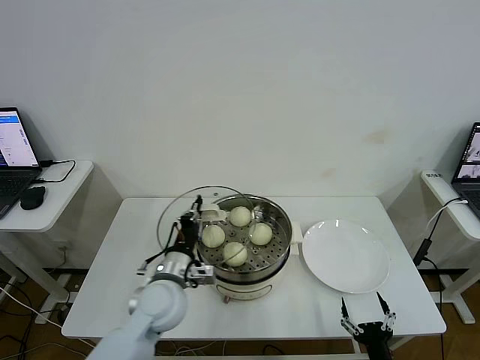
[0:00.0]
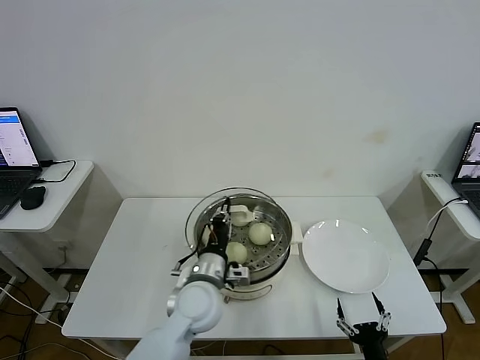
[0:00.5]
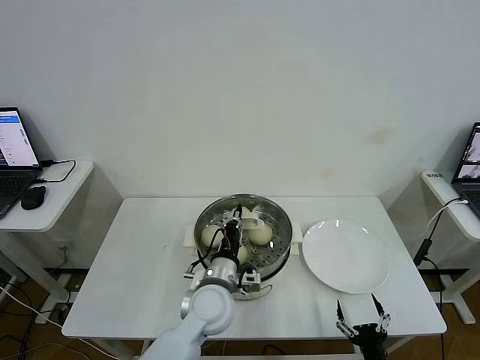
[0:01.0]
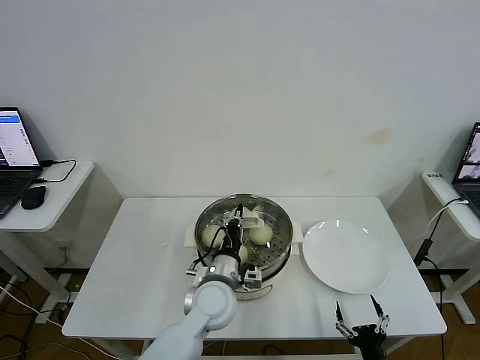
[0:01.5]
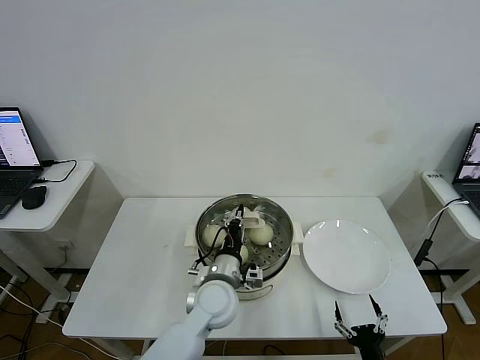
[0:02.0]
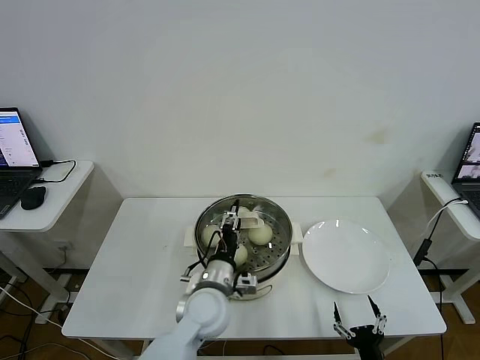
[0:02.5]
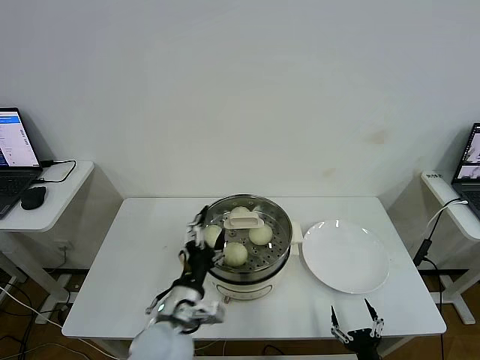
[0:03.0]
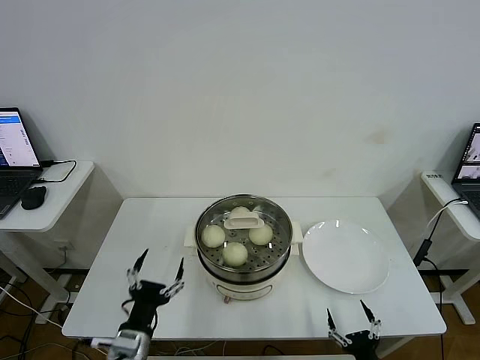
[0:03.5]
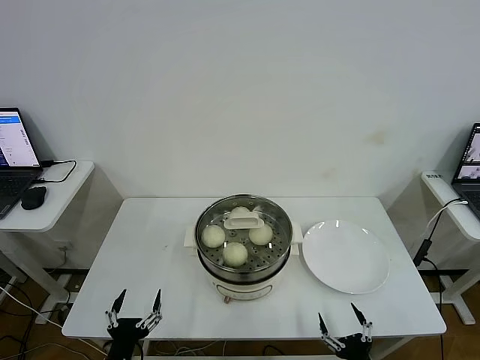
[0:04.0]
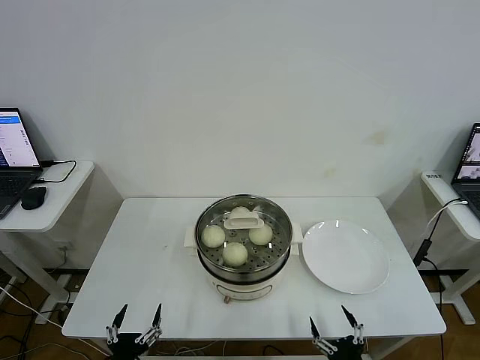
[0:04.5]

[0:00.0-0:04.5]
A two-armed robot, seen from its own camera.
Step, 0:00.0 to 0:02.5: Place the pot lid on the steamer with left gripper.
0:00.0 to 0:02.0: The left gripper heads to the right, covering approximately 10 cm.
0:02.0 to 0:04.5: The left gripper travels backward and to the left by approximately 30 cm, and opens its fingers.

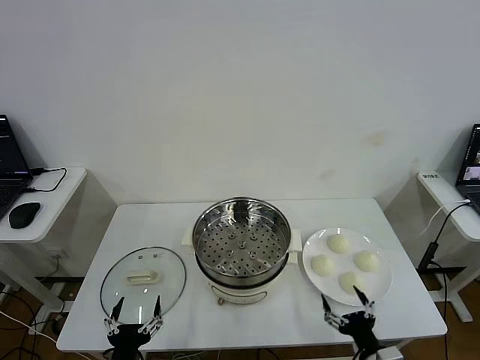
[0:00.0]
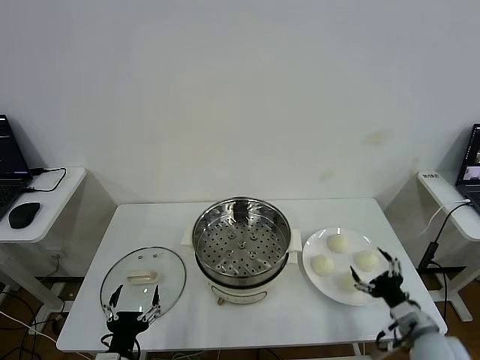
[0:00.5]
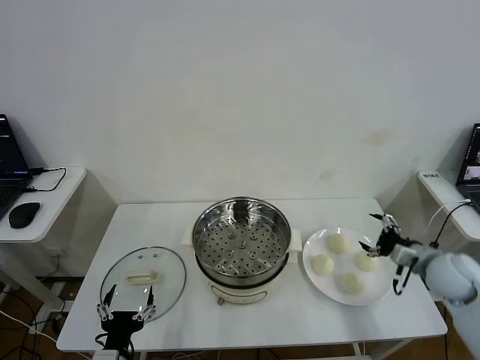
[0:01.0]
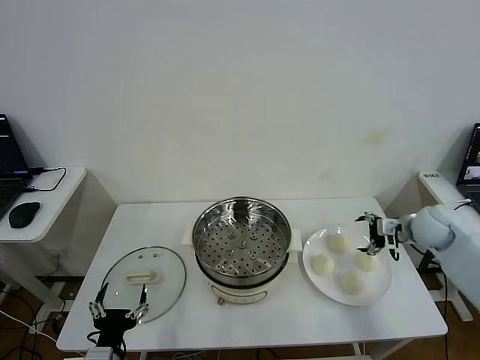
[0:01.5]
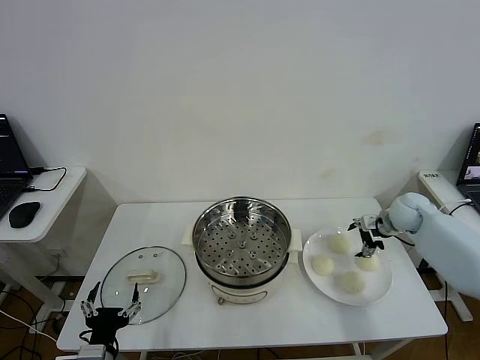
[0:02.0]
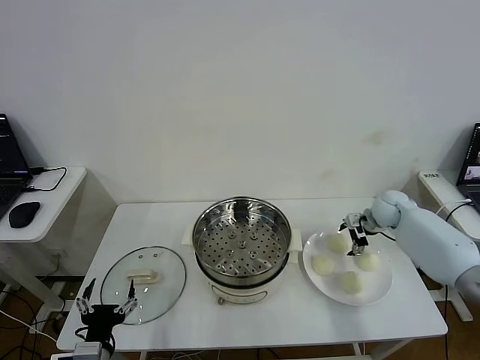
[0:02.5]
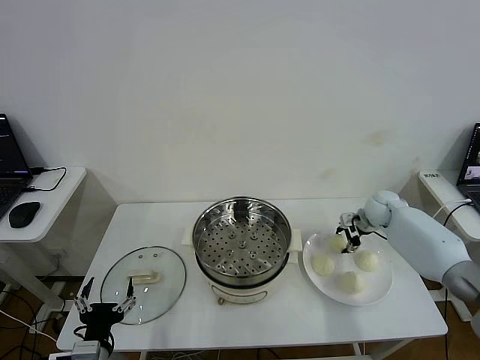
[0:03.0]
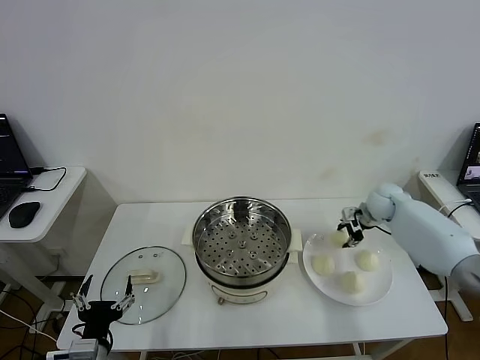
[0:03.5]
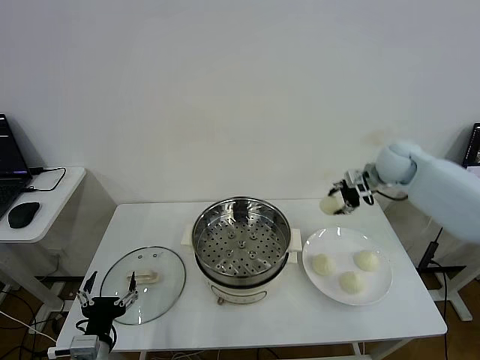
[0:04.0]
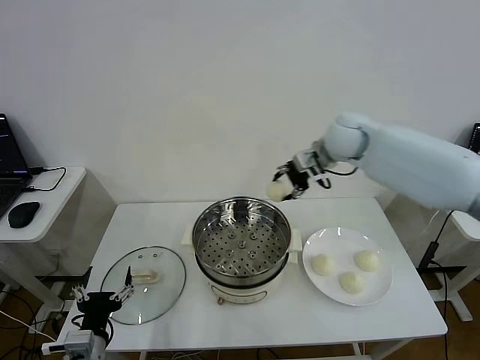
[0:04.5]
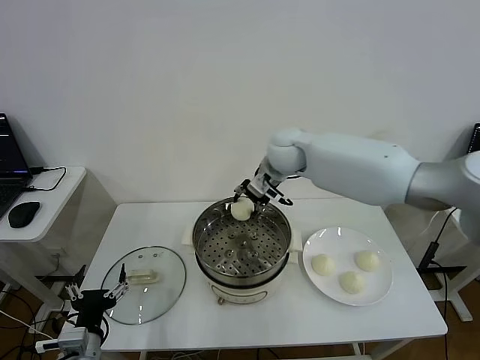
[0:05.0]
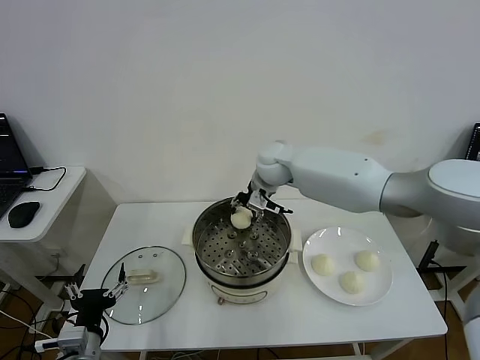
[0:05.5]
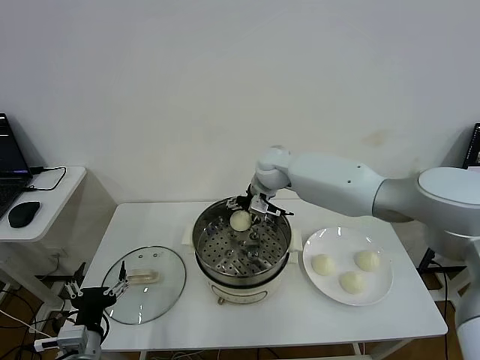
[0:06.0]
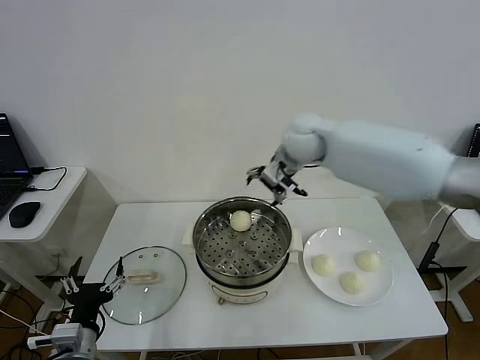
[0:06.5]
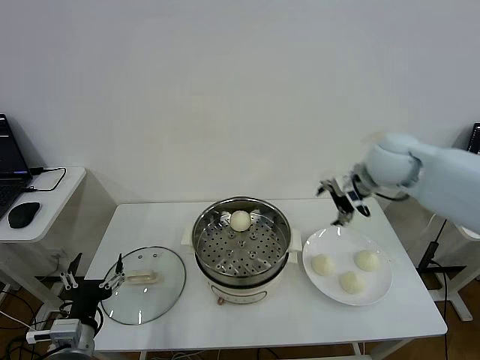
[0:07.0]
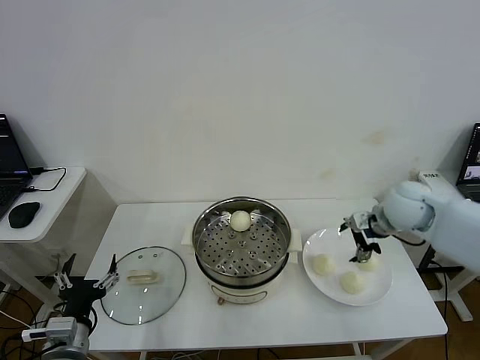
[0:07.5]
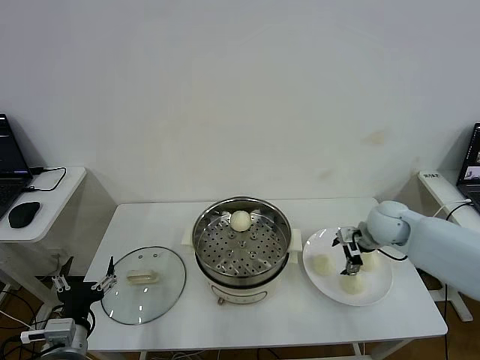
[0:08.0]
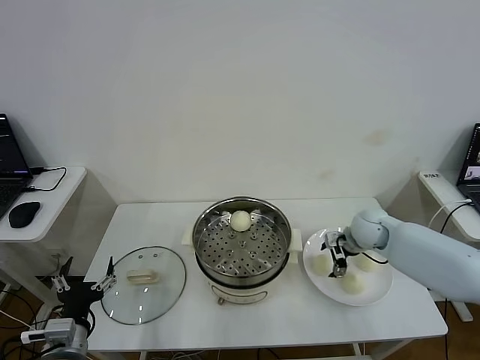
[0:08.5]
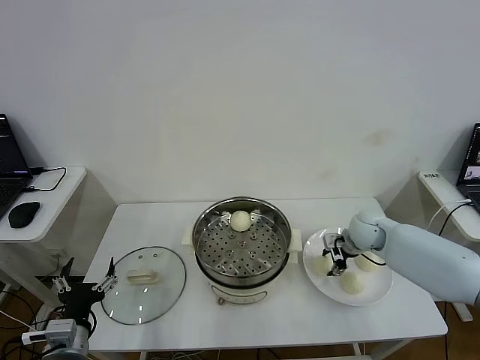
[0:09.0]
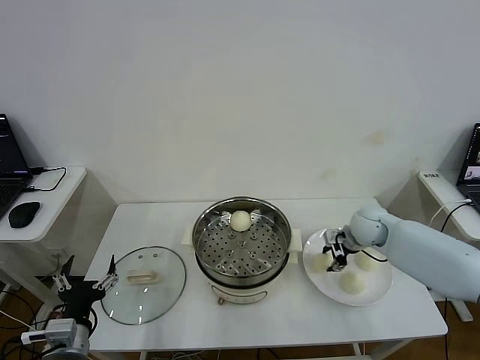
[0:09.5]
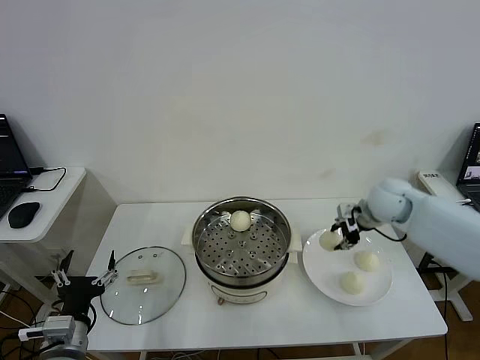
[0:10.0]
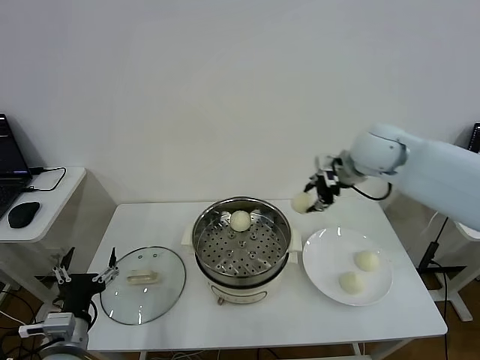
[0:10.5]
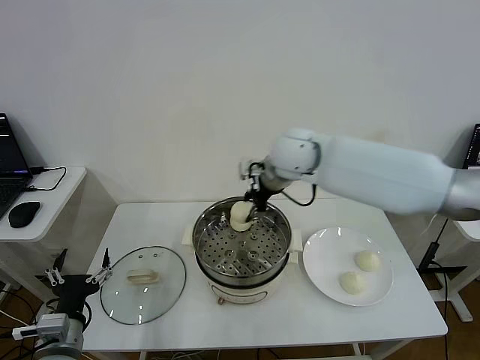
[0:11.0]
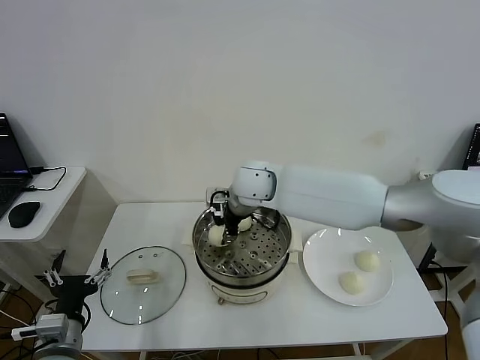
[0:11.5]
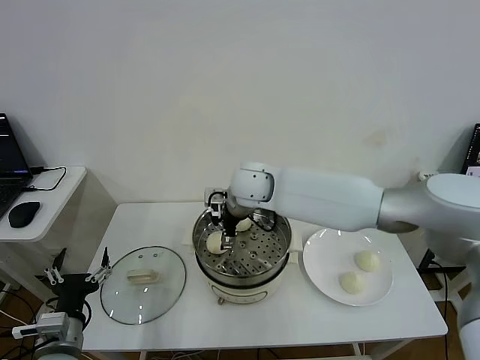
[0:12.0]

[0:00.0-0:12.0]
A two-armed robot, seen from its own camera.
Step, 0:00.0 to 0:03.0: Grasp the baozi in the plate with right gripper.
Step, 0:03.5 to 0:05.5: Place the baozi on the steamer with right gripper.
Step, 0:06.0 to 0:08.5: Grasp the baozi in the plate with right gripper.
Step, 0:09.0 to 0:11.5: Place the baozi on the steamer with right gripper.
0:02.0 to 0:04.0: The right gripper goes roughly 20 cm upward and to the left, and closes up.
0:04.0 to 0:06.0: The right gripper is displaced to the left by approximately 25 cm, and opens.
0:06.0 to 0:08.0: The right gripper travels to the right, downward and backward by roughly 30 cm.
0:08.0 to 0:10.0: The right gripper shifts about 10 cm upward, and closes its fingers.
0:10.0 to 0:12.0: The right gripper is displaced to the left by some 30 cm, and opens.

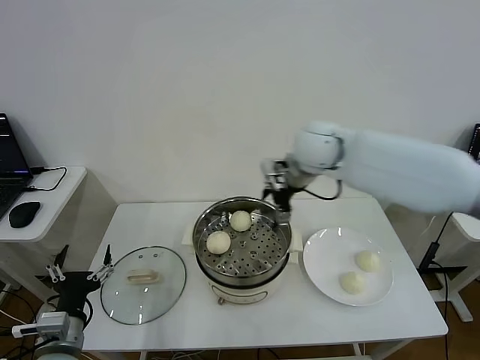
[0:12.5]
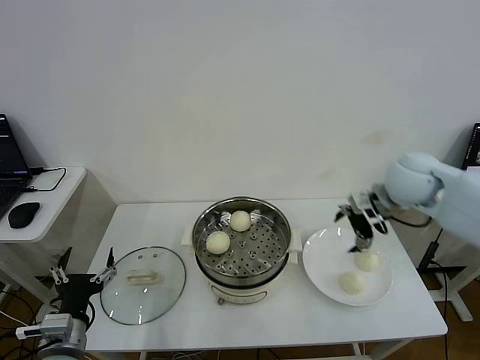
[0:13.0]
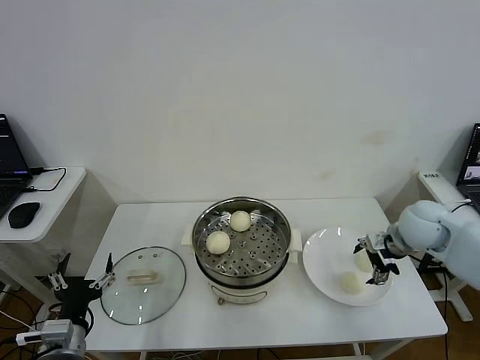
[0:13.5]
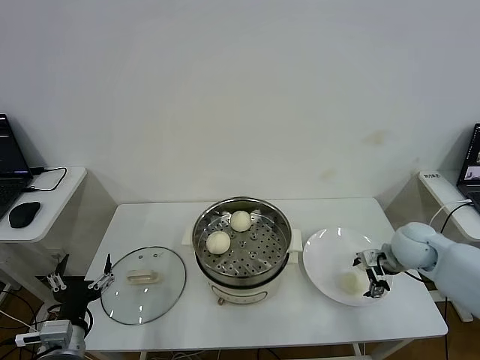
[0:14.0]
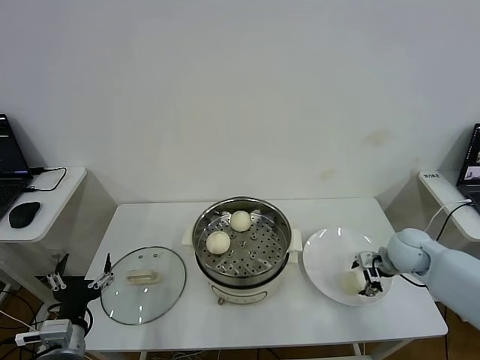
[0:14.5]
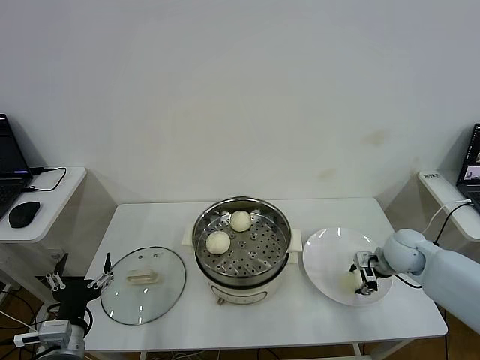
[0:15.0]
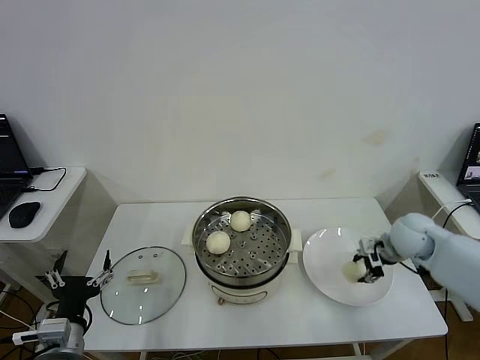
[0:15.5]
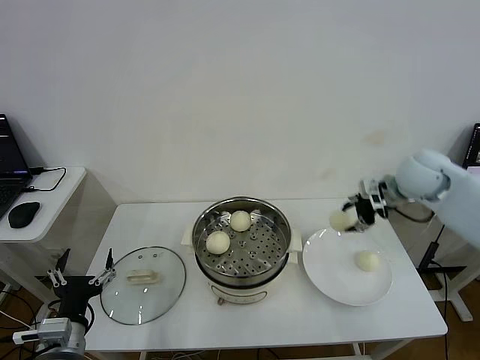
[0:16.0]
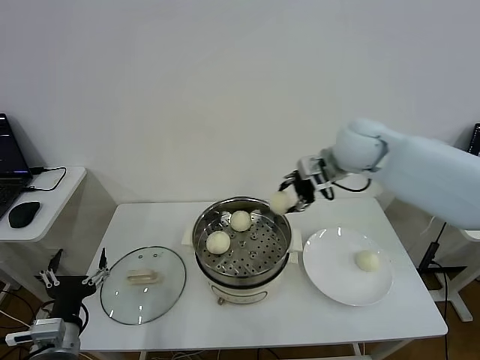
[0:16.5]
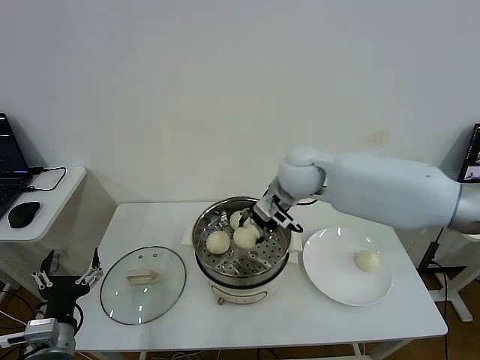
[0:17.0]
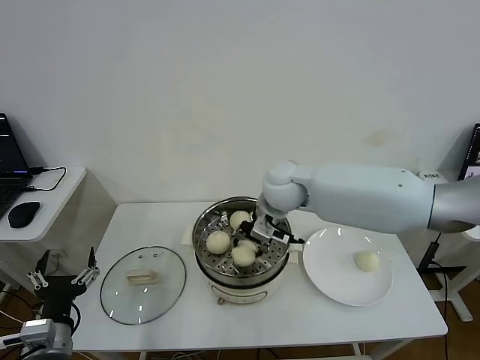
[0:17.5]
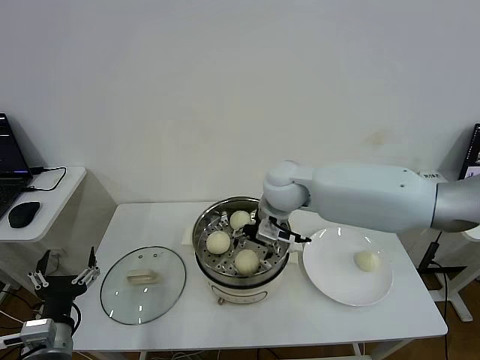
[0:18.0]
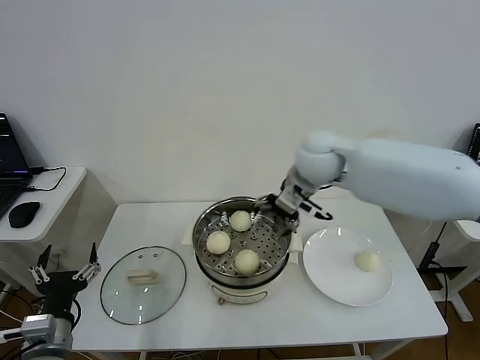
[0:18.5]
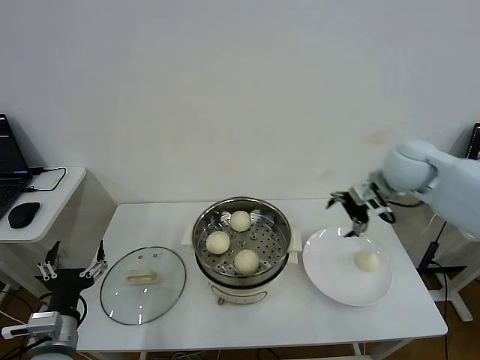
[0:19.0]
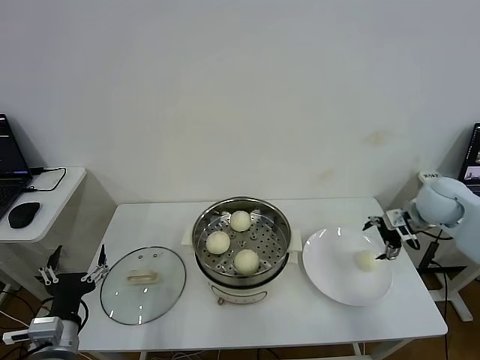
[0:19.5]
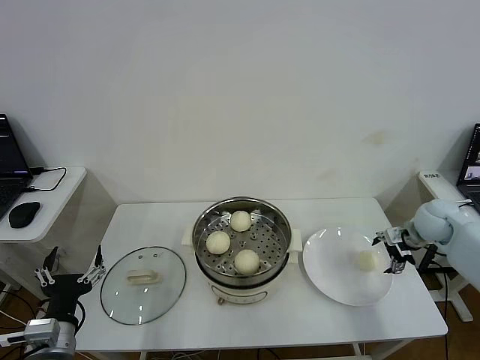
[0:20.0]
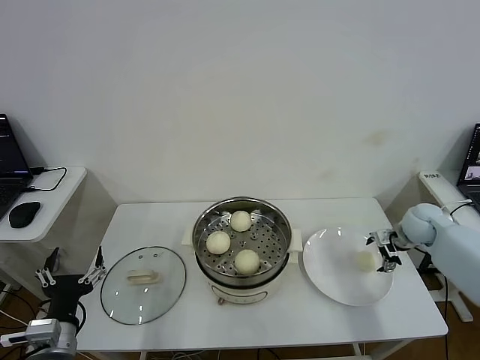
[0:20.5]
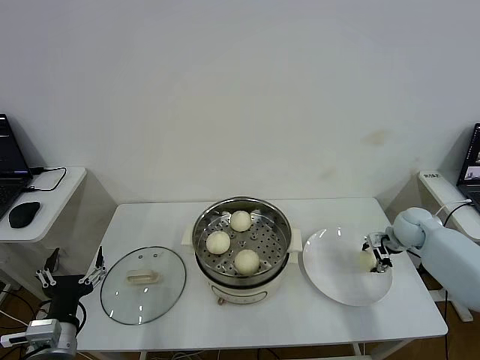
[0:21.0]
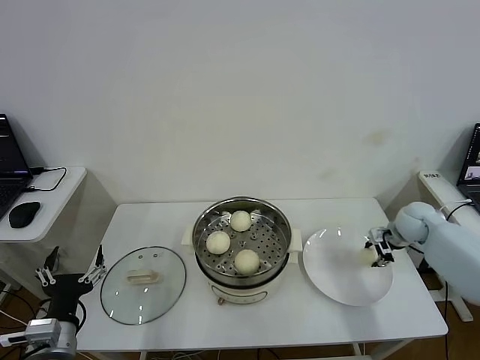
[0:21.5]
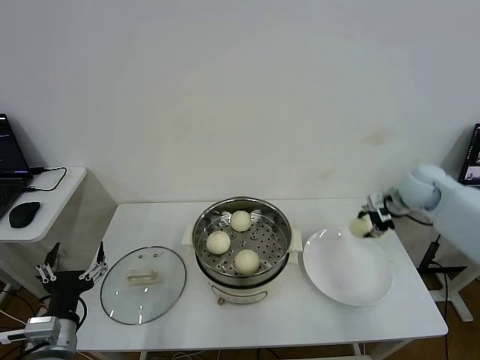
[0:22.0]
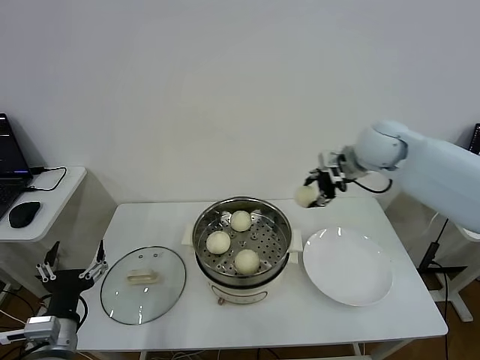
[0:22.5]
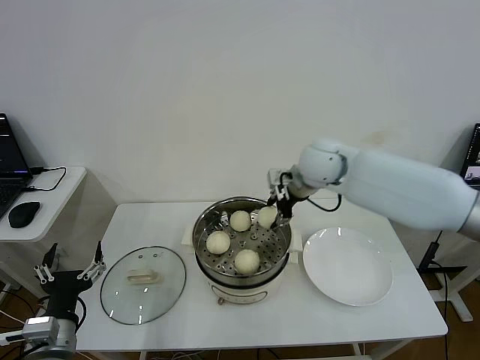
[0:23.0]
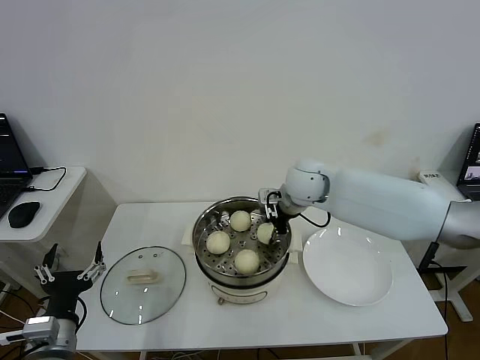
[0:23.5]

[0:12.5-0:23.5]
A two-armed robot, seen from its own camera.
Step, 0:12.5 to 0:14.5: Grasp the baozi in the plate with right gripper.
Step, 0:15.0 to 0:18.0: Place the baozi on the steamer with right gripper.
Step, 0:18.5 to 0:21.0: Grasp the baozi in the plate with right gripper.
0:12.5 to 0:14.5: The right gripper goes about 30 cm downward and to the right, and closes.
0:14.5 to 0:16.0: The right gripper is displaced upward by some 20 cm, and closes.
0:16.0 to 0:18.0: The right gripper is displaced to the left by approximately 25 cm, and opens its fingers.
0:18.0 to 0:20.0: The right gripper shifts roughly 35 cm to the right.
0:20.0 to 0:21.5: The right gripper closes up.
0:21.5 to 0:23.5: The right gripper heads to the left and upward, covering approximately 35 cm.
